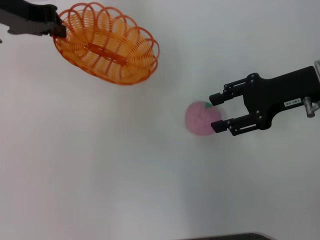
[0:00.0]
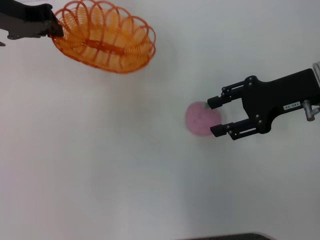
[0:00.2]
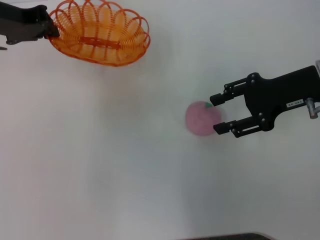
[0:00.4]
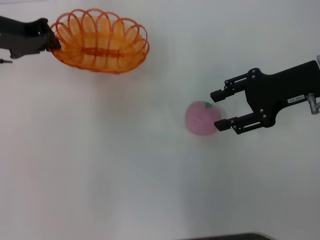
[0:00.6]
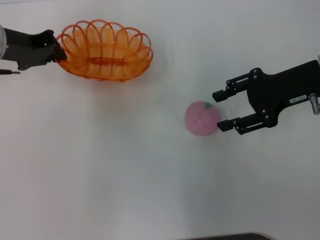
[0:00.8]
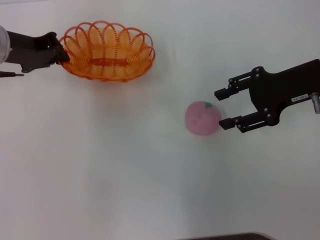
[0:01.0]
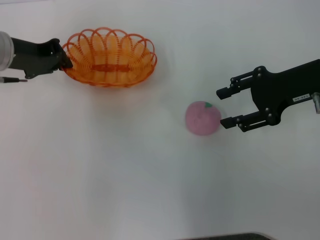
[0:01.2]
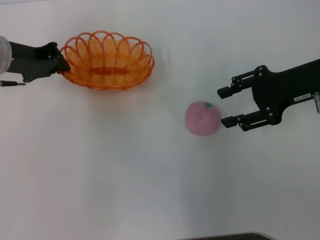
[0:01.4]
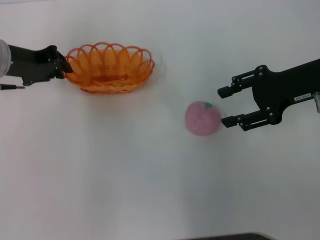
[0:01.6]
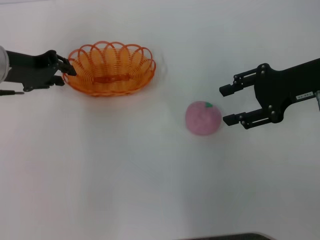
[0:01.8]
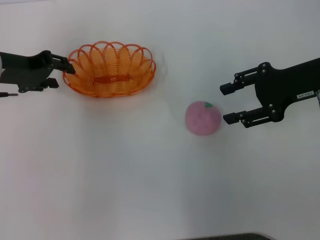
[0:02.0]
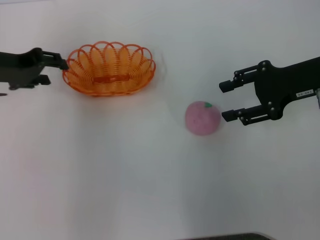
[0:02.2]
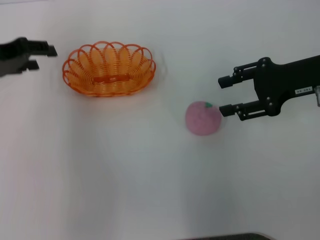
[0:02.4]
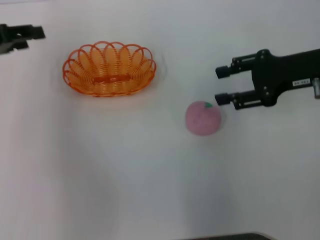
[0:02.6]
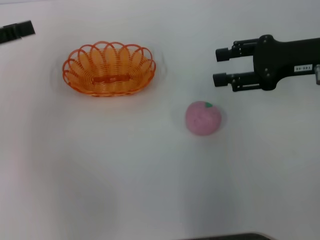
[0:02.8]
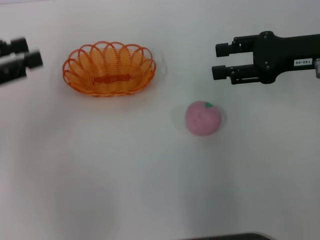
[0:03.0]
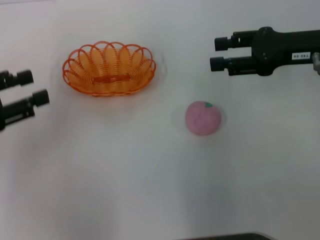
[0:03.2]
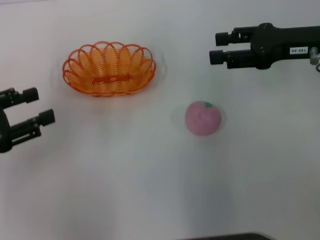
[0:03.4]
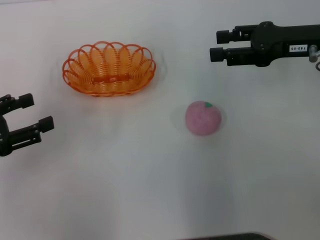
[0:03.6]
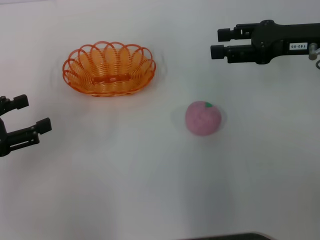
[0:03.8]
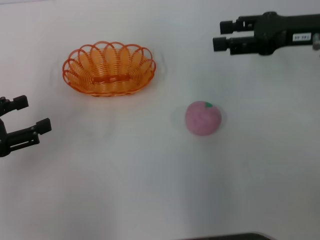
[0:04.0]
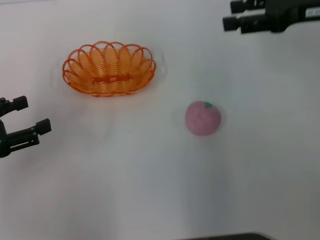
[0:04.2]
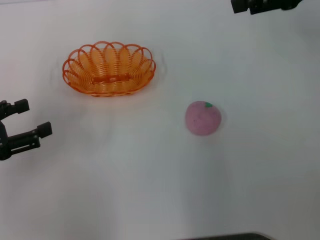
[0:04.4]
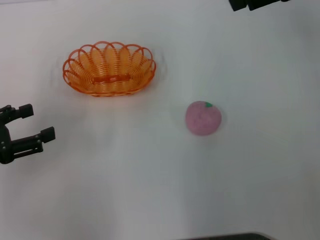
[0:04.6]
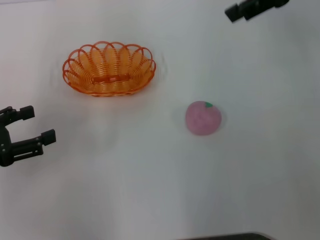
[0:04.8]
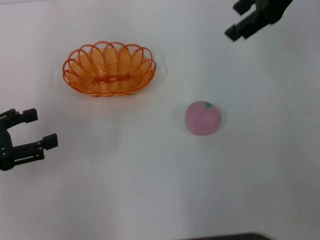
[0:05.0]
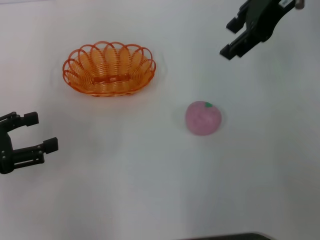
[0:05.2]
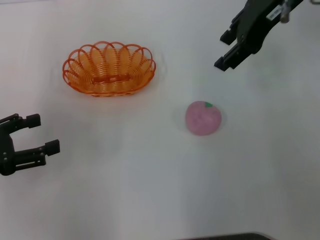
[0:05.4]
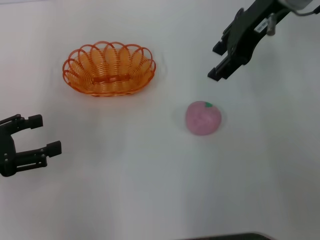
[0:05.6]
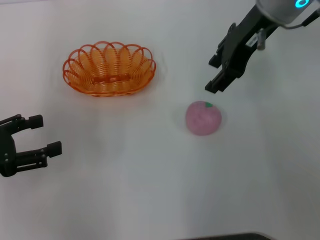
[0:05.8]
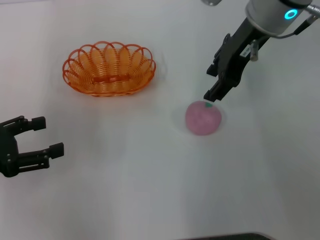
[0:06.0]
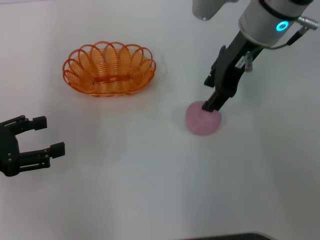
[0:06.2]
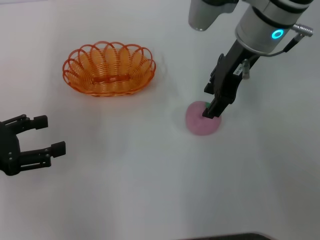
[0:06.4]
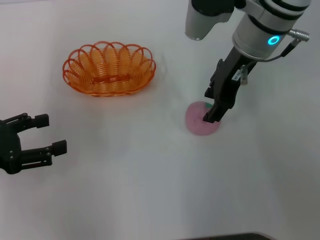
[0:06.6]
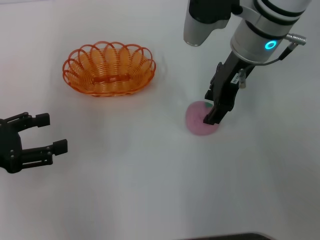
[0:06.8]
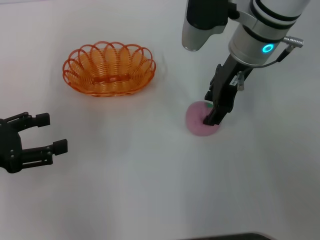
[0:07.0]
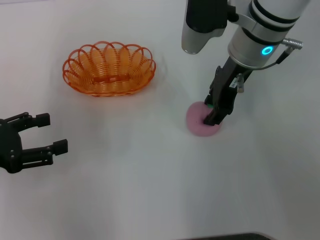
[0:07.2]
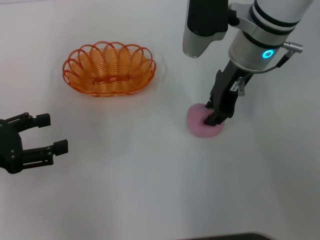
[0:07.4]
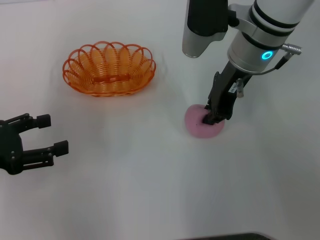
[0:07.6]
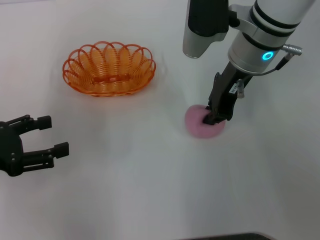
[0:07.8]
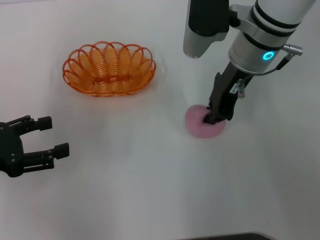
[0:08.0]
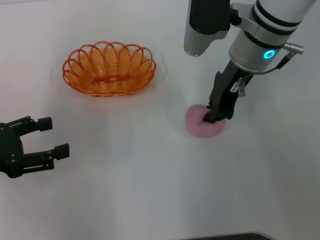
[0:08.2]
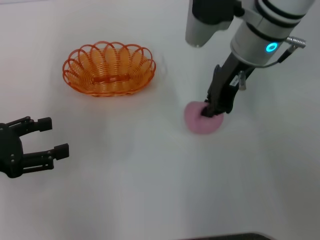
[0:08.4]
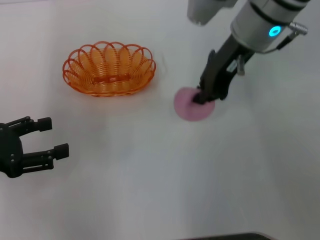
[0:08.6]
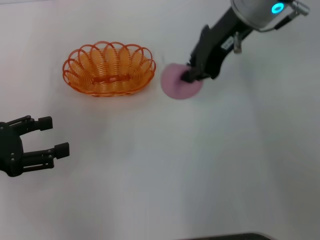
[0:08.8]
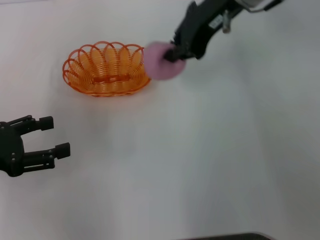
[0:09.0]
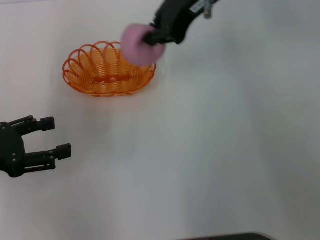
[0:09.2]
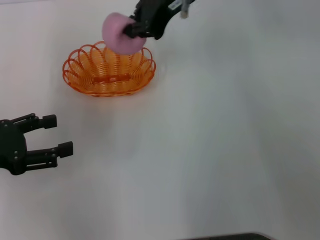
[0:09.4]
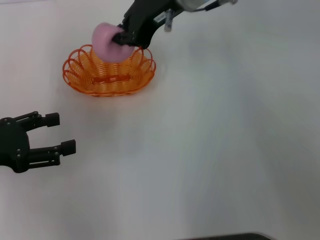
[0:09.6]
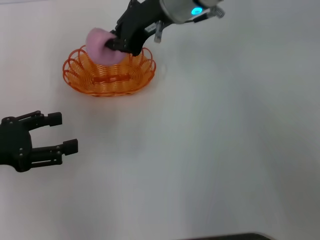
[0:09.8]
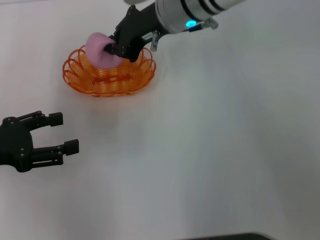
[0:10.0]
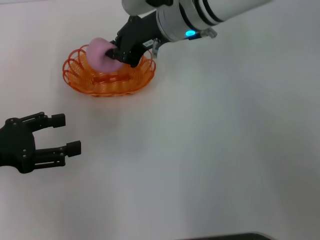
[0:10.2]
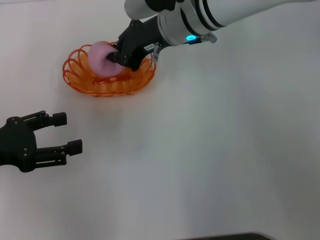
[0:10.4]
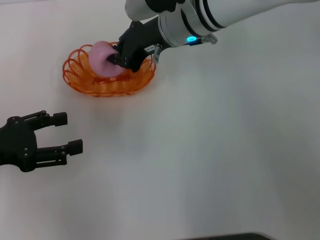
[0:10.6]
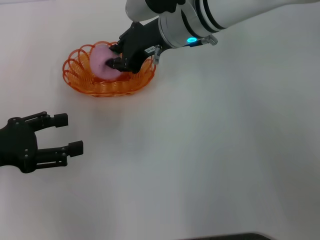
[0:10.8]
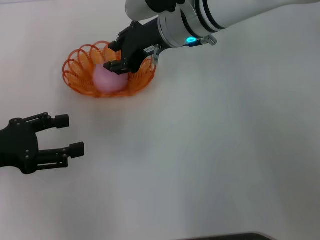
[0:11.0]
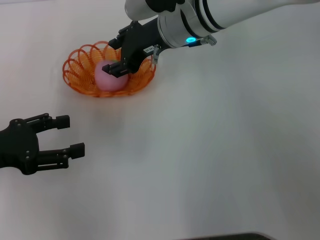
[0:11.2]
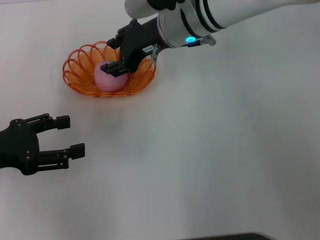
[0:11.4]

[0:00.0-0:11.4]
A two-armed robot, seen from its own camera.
Step, 0:00.0 to 0:02.2: Place the basket in the center of view with the left gripper.
Step, 0:02.4 to 0:08.6: Pick up the peach with the right gripper.
0:00.0 to 0:01.4: The left gripper shifts approximately 10 cm downward.
0:01.4 to 0:02.8: The left gripper shifts about 10 cm backward and to the left, and opens.
0:02.8 to 0:04.2: The left gripper is displaced downward and backward by approximately 10 cm; the right gripper is displaced upward by some 5 cm.
0:04.2 to 0:05.6: The right gripper travels to the left by roughly 10 cm.
0:05.6 to 0:07.2: The right gripper is displaced downward by some 10 cm.
0:07.2 to 0:08.6: The right gripper closes.
0:08.6 to 0:10.0: The right gripper moves to the left, roughly 5 cm, and travels upward and back again, some 5 cm each way.
0:10.0 to 0:11.4: The right gripper opens its fingers.

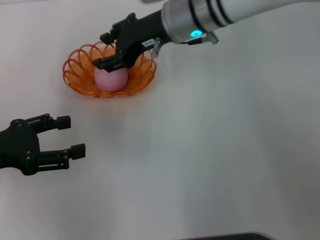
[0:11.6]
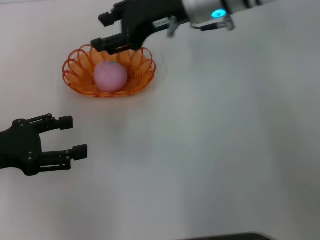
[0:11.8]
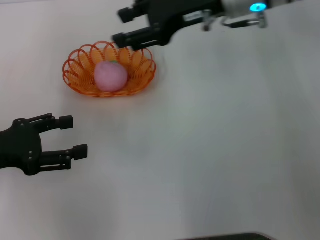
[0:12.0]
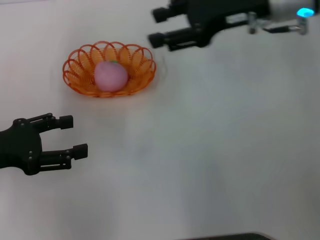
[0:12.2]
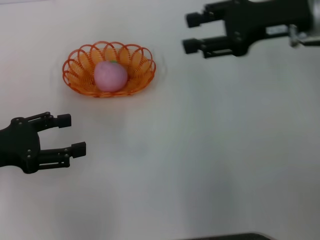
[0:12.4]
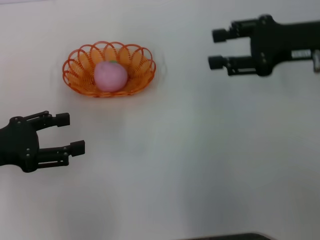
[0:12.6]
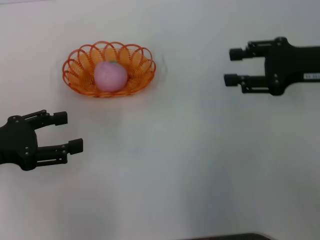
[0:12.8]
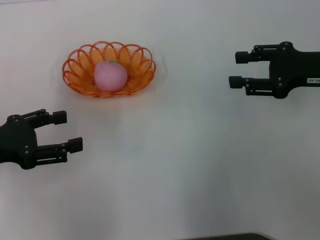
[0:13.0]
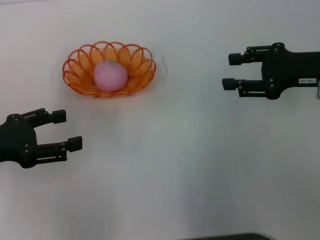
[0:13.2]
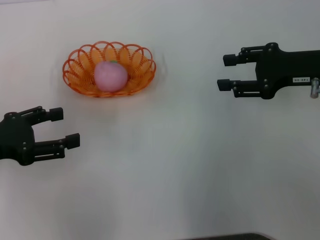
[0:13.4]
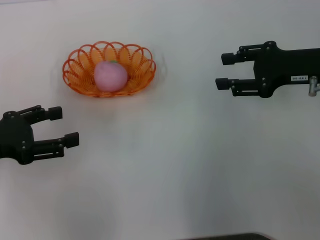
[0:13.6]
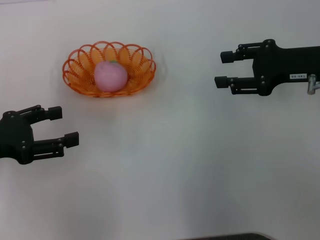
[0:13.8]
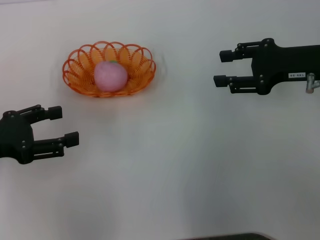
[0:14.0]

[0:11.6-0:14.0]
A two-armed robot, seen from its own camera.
0:11.6 to 0:12.8: The right gripper heads to the right and backward, covering about 25 cm.
0:12.8 to 0:14.0: The grippers make only small movements.
